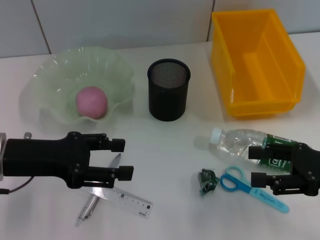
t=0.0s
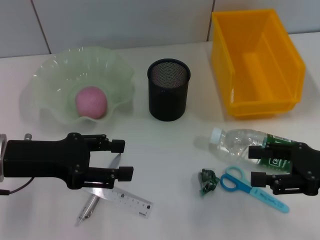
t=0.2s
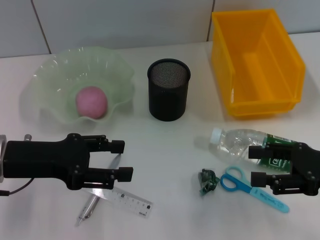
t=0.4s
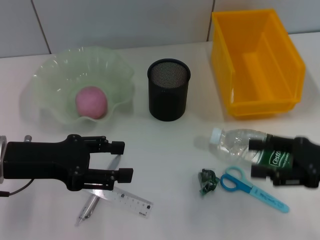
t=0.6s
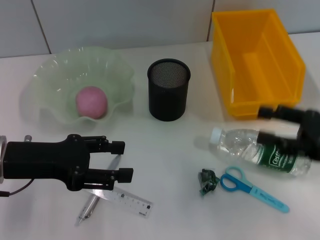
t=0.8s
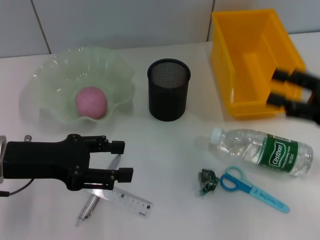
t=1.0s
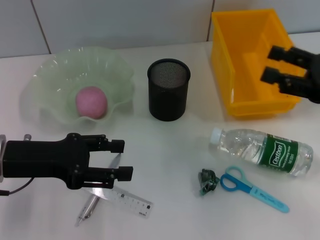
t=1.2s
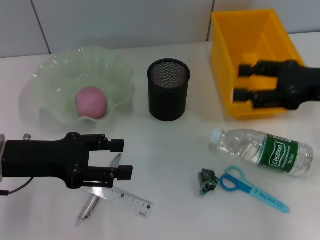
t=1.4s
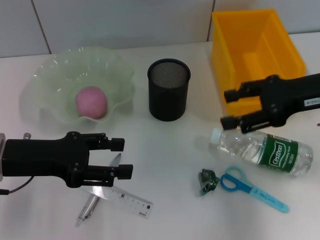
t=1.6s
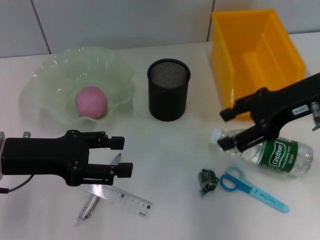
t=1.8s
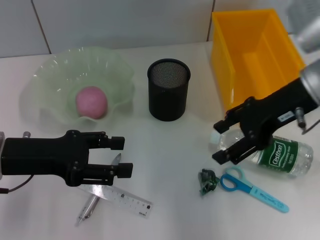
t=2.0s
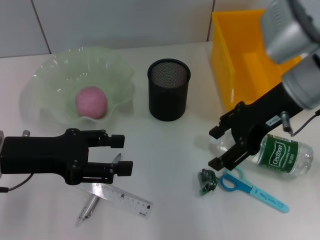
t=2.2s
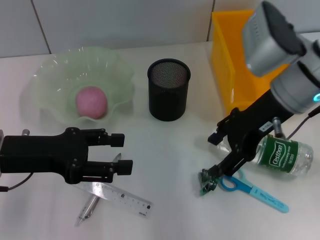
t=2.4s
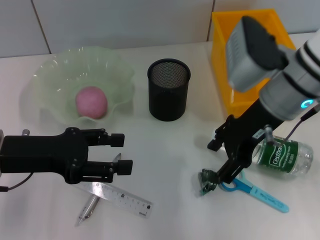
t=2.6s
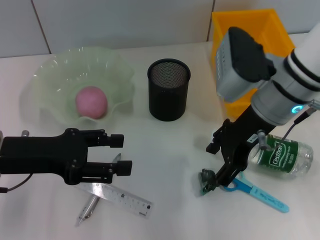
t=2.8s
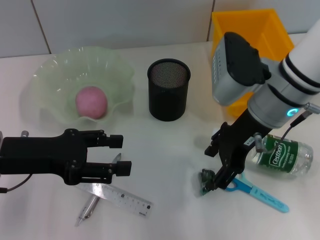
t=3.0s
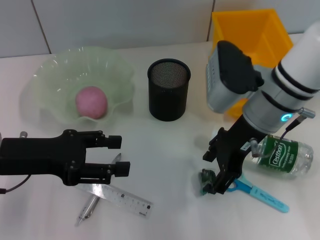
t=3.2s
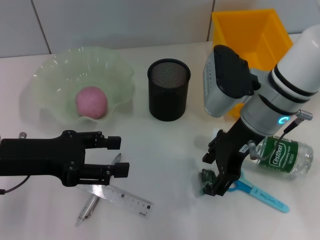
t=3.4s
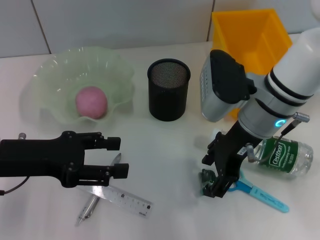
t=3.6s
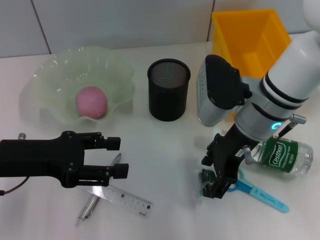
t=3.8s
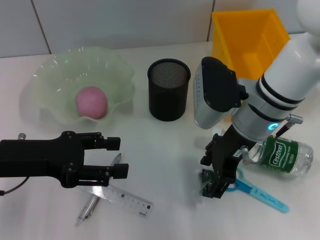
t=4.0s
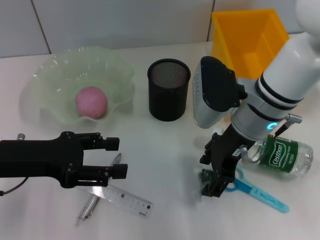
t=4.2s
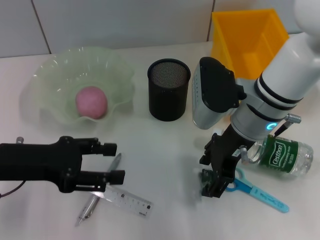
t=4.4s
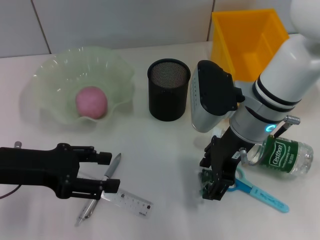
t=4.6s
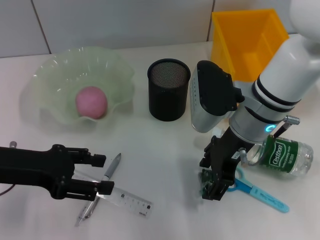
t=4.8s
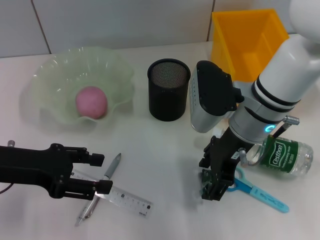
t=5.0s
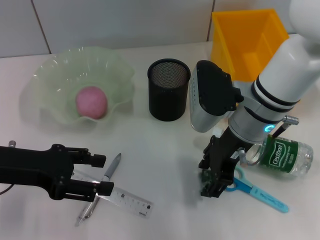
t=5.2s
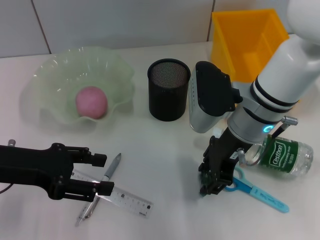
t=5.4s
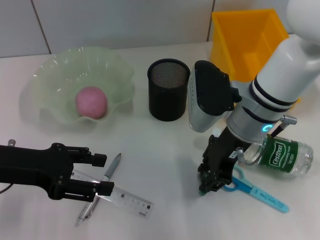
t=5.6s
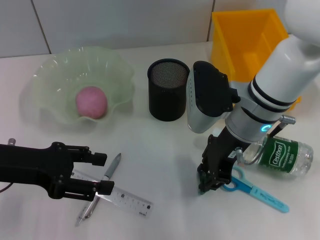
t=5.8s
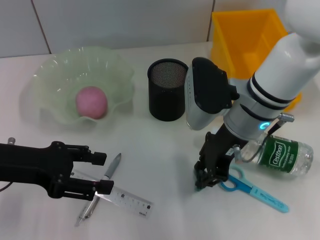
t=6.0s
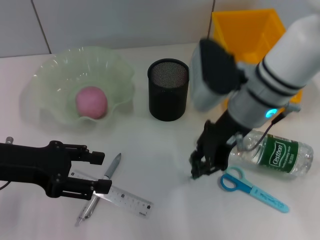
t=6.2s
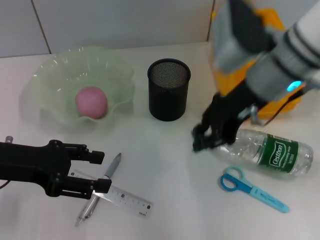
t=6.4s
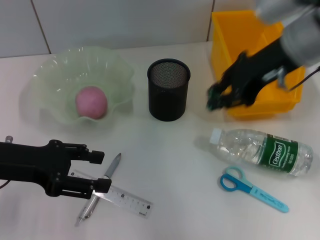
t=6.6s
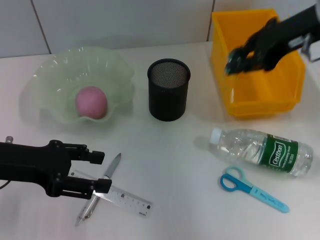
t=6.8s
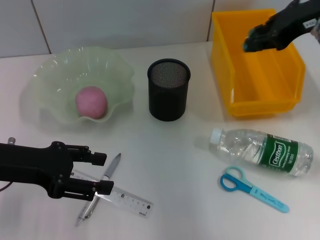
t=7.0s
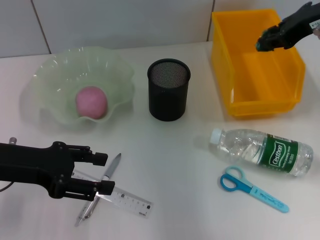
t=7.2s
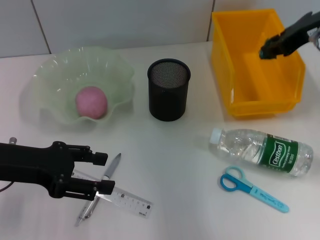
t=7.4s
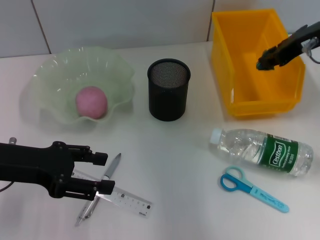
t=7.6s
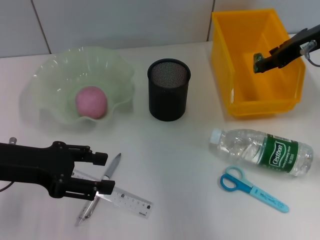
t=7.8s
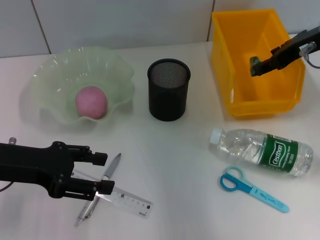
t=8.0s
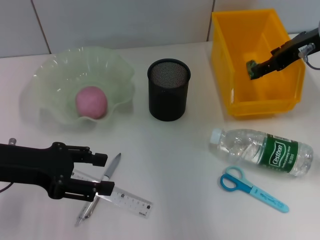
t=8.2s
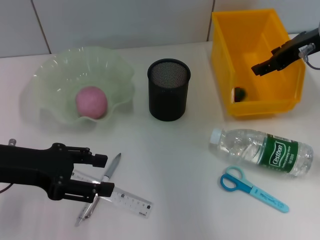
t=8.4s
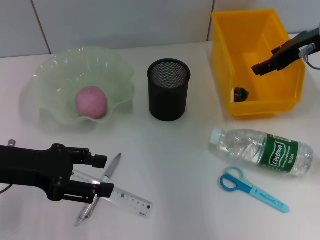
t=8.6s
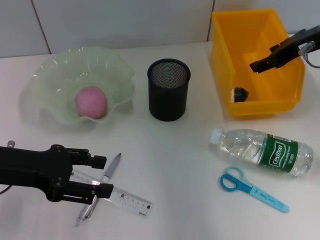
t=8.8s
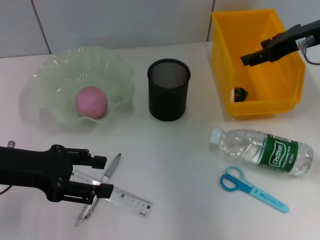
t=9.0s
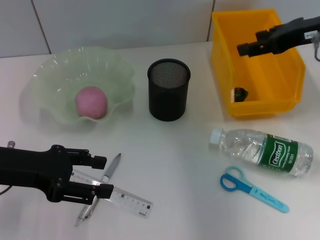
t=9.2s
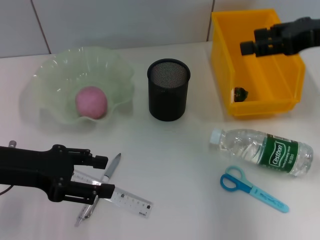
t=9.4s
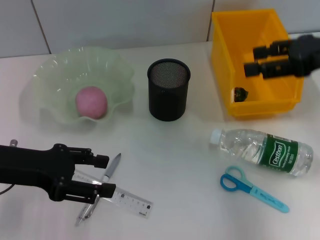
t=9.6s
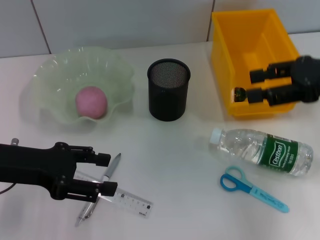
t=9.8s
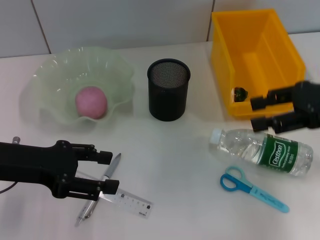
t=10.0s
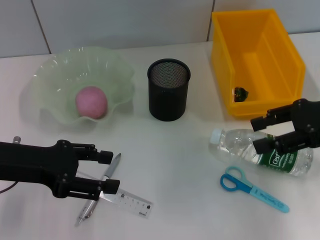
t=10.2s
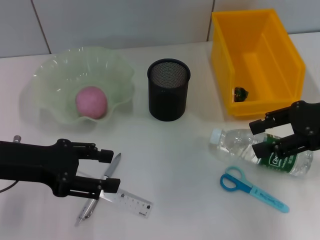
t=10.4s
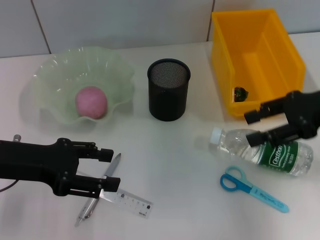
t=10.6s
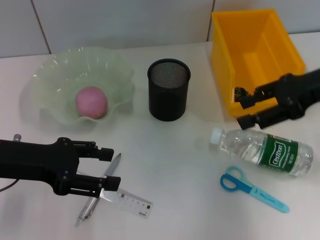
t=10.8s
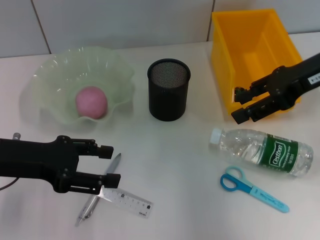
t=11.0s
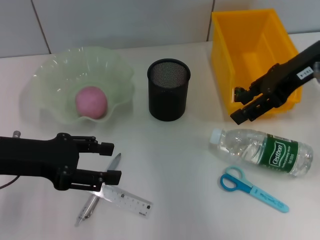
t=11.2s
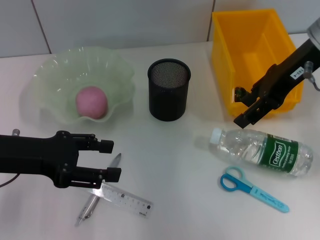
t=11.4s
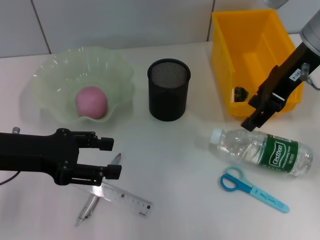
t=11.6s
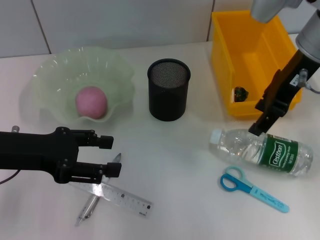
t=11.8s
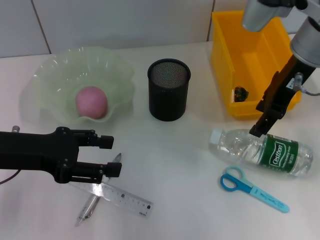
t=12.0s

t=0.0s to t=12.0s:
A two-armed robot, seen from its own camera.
Step, t=0.0s to t=6.2s: Grab the plastic with the right hand.
Step, t=6.4s to t=8.2s: Place the plastic into the trash can with the right hand.
t=0.0s to t=1.6s: The right gripper travels forward and upward by roughly 10 cm.
t=1.6s to t=3.0s: The right gripper travels to the left by some 10 cm.
t=3.0s to t=4.4s: There are only small adjustments of the grippers.
t=4.4s to t=6.0s: The right gripper closes up.
t=6.0s to t=7.6s: The right gripper heads to the right, upward and forward, covering approximately 15 cm.
t=7.6s to t=9.0s: The right gripper opens up.
t=9.0s to t=10.4s: The right gripper shifts roughly 10 cm backward.
t=10.4s to t=12.0s: The right gripper shifts approximately 15 cm to the left and forward.

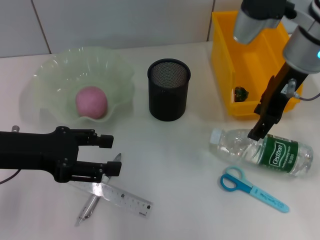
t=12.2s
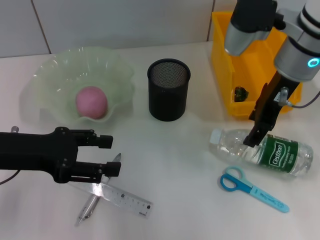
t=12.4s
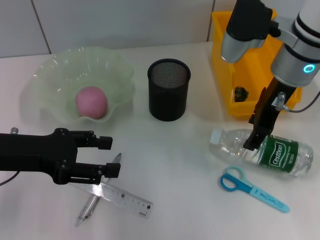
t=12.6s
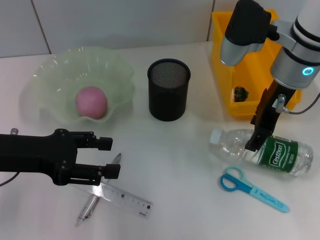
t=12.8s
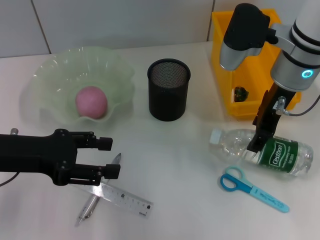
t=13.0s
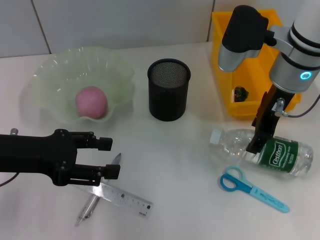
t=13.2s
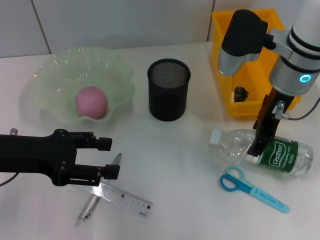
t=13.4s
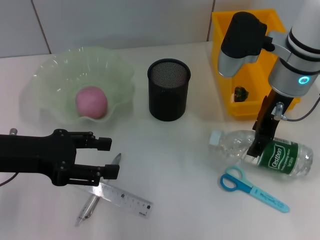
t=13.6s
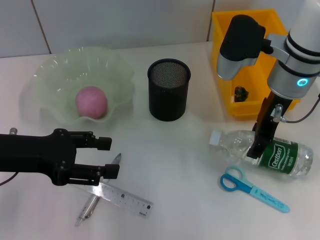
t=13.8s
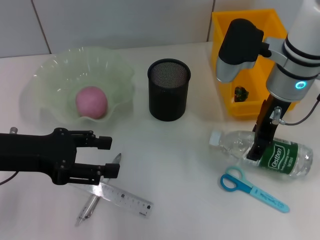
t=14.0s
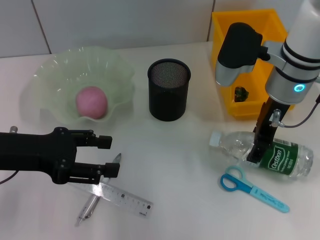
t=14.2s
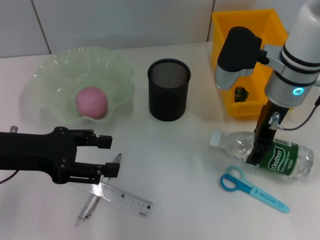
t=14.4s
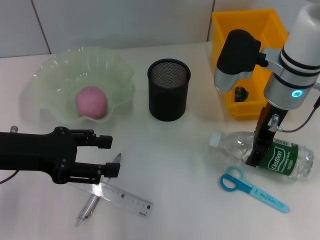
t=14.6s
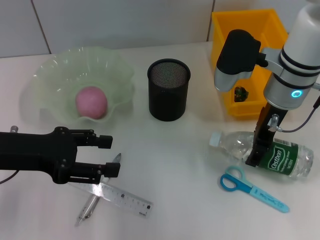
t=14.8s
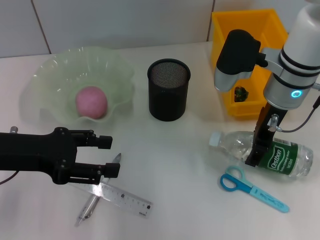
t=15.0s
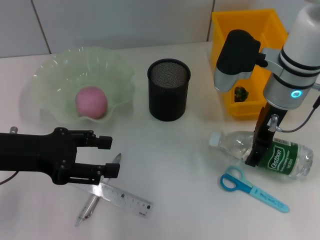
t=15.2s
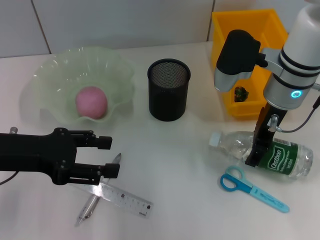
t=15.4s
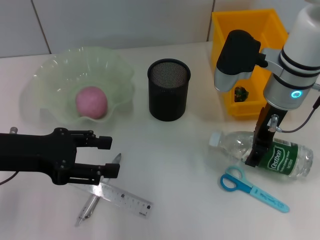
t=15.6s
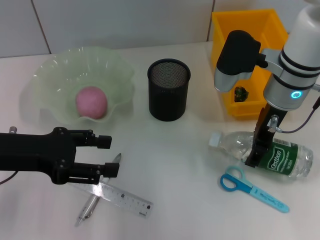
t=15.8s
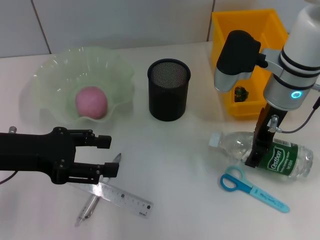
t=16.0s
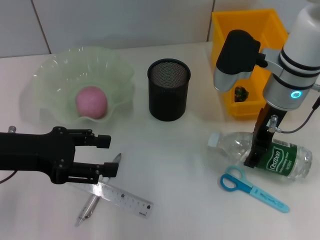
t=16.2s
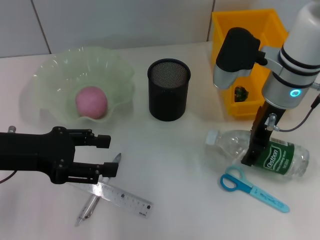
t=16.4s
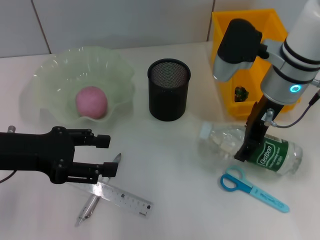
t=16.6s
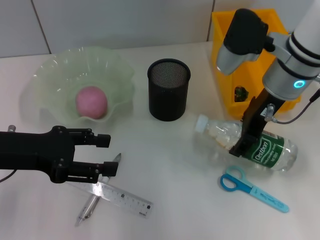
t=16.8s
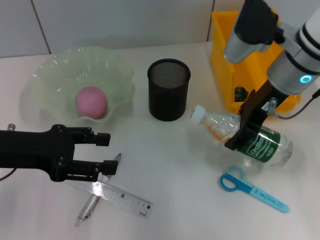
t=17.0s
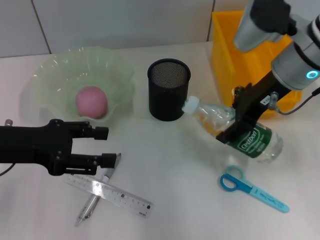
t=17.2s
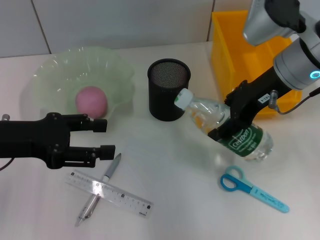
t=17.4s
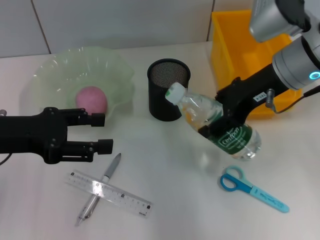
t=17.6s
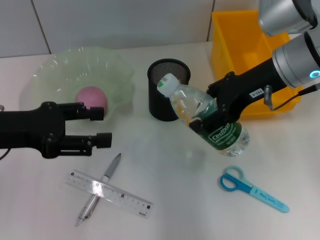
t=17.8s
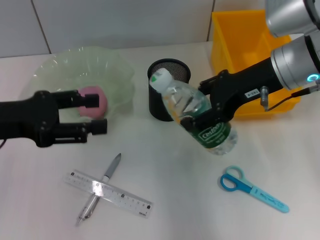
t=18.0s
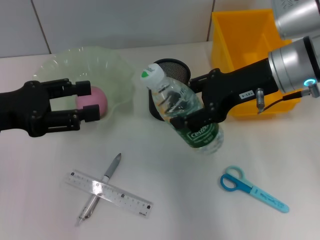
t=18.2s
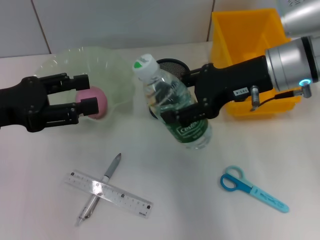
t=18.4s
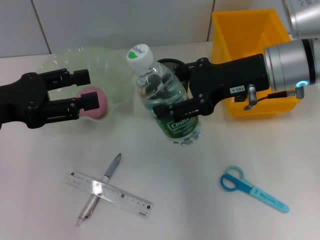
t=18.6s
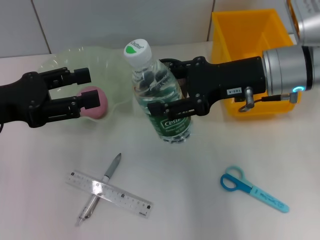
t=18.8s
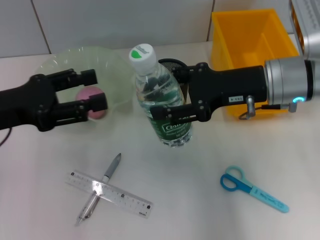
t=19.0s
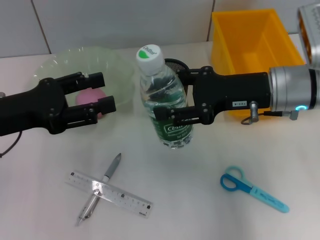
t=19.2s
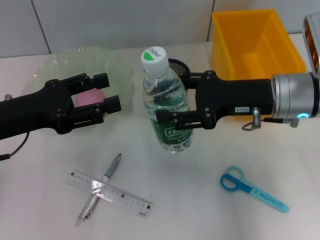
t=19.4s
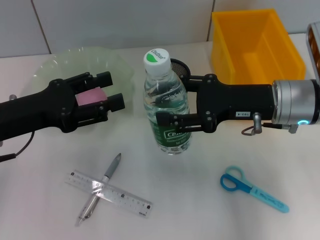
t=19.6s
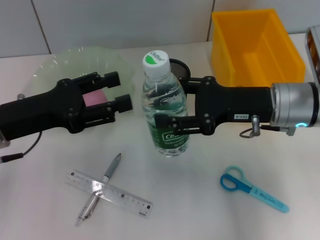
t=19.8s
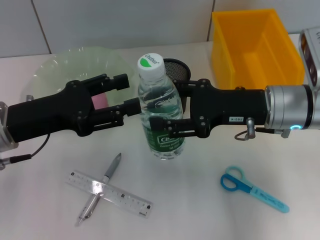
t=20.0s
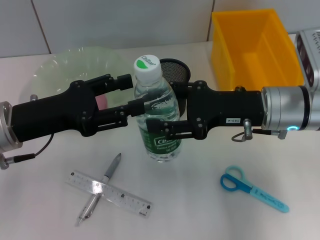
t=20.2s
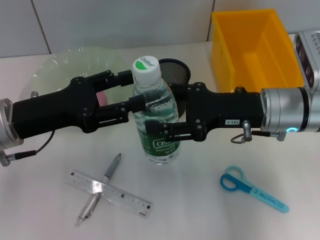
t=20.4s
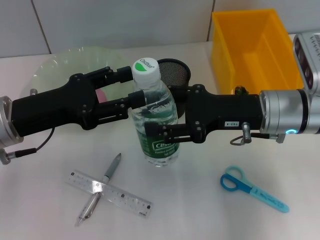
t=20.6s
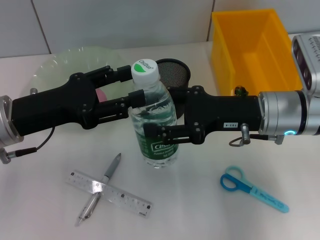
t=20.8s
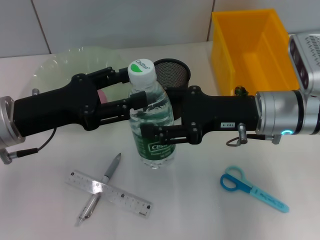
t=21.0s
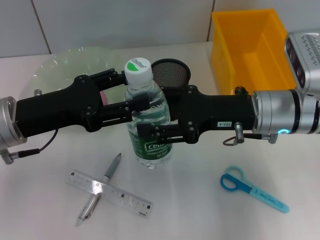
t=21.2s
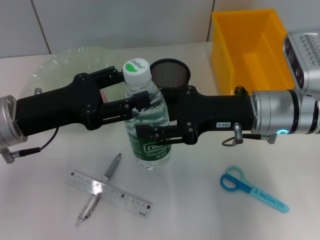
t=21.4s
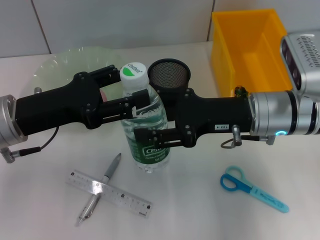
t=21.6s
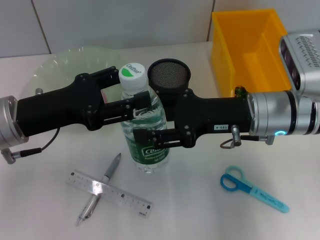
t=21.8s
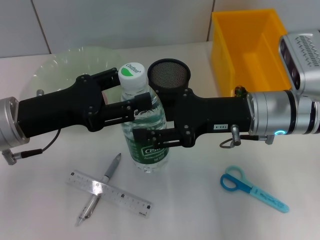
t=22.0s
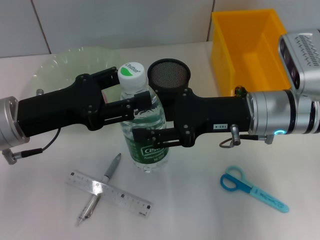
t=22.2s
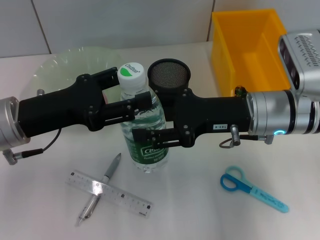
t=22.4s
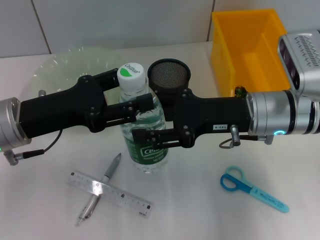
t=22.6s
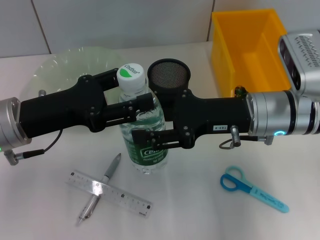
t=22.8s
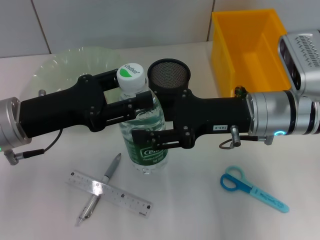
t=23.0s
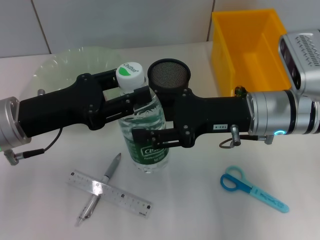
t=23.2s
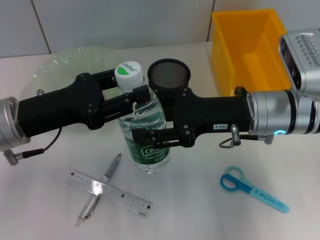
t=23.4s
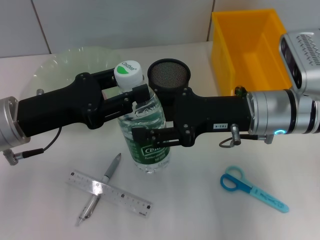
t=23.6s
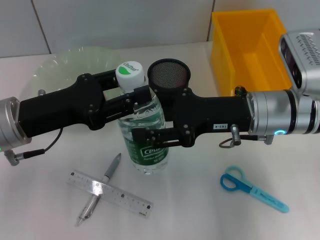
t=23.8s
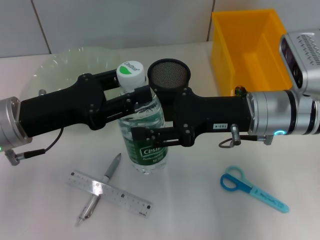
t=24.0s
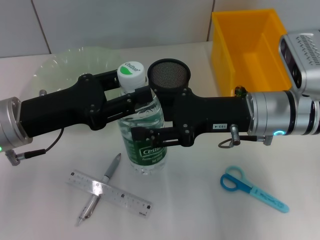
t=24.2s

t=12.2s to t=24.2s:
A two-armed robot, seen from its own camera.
Step, t=12.2s to t=16.6s: Grab the water bottle with the right hand.
t=12.2s to t=13.8s: The grippers move only a little.
t=13.8s to t=16.6s: There are only small adjustments of the grippers.
t=18.2s to t=19.8s: The right gripper travels downward by roughly 5 cm; the left gripper moves approximately 5 cm.
t=19.8s to t=21.2s: There are only small adjustments of the grippers.
t=21.2s to t=22.6s: Neither gripper changes place.
t=22.6s to t=24.2s: The left gripper closes its fingers.
